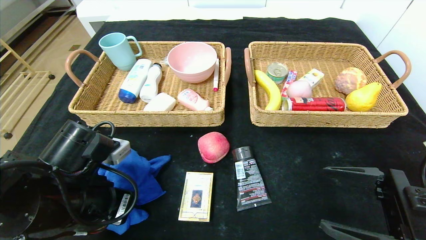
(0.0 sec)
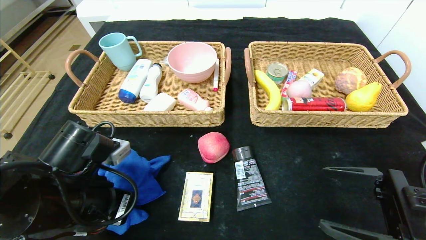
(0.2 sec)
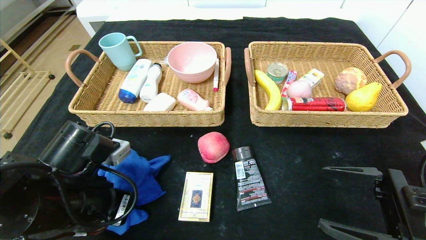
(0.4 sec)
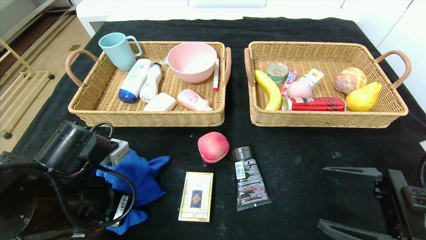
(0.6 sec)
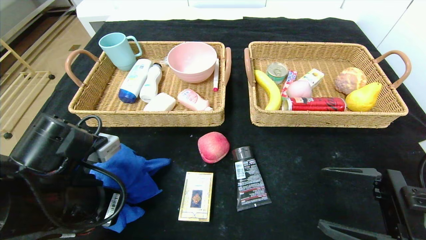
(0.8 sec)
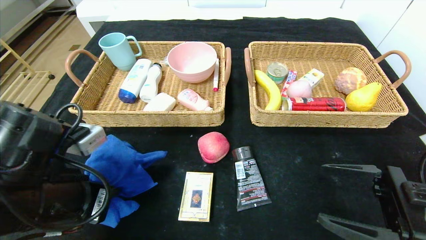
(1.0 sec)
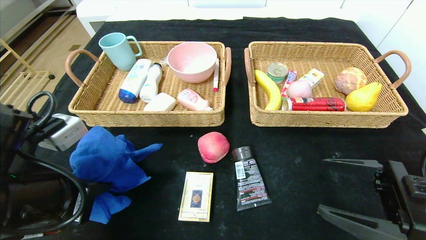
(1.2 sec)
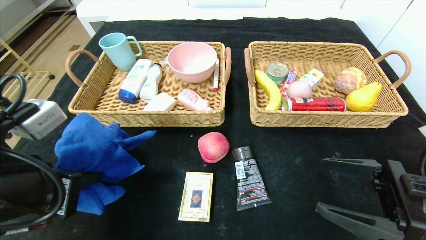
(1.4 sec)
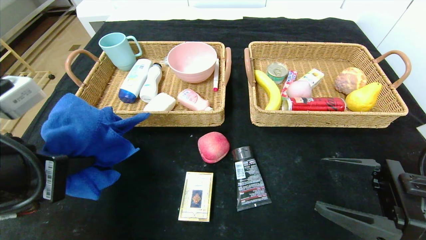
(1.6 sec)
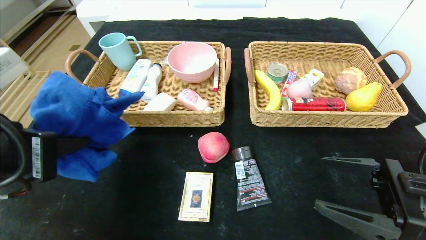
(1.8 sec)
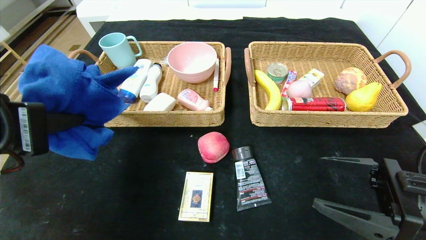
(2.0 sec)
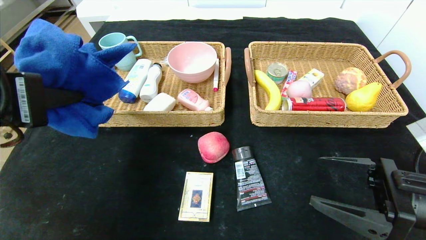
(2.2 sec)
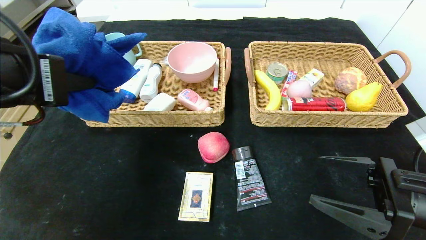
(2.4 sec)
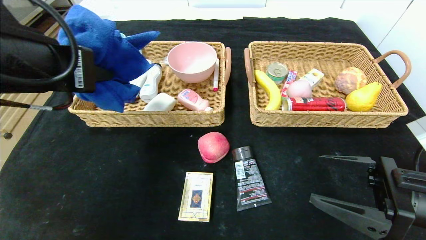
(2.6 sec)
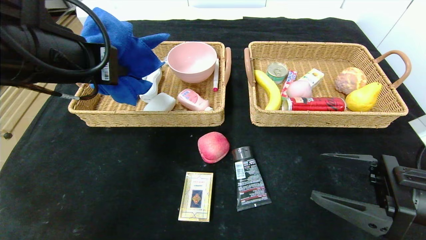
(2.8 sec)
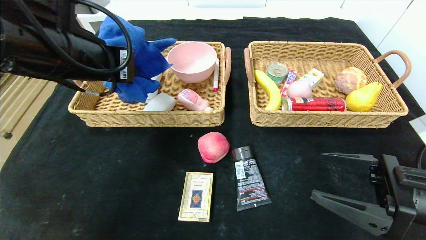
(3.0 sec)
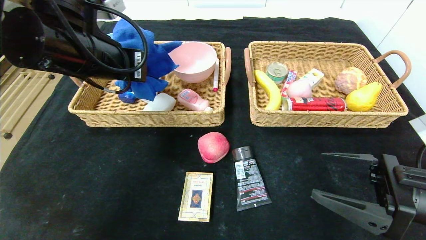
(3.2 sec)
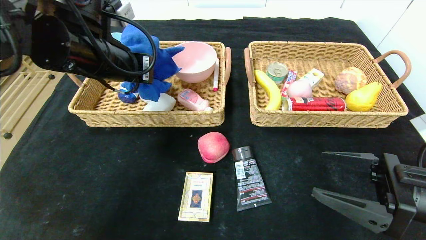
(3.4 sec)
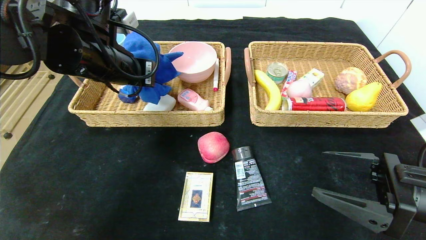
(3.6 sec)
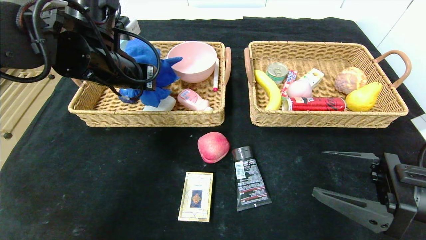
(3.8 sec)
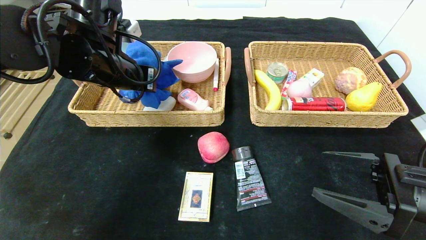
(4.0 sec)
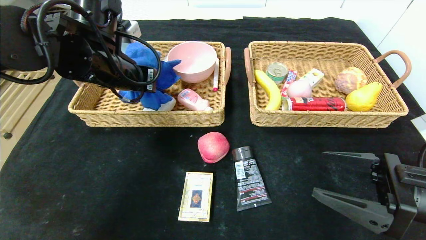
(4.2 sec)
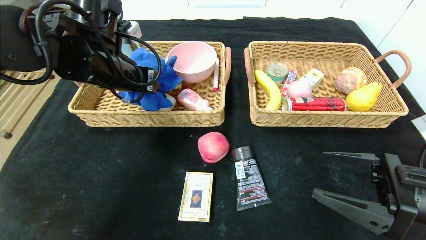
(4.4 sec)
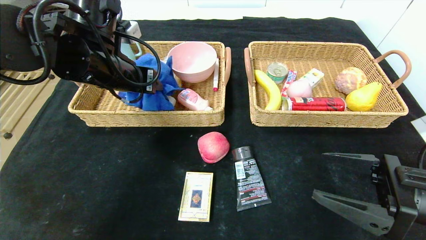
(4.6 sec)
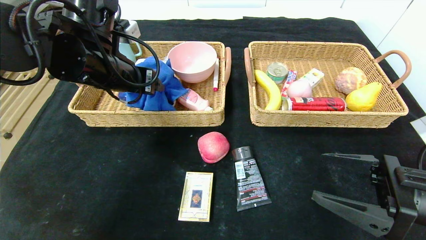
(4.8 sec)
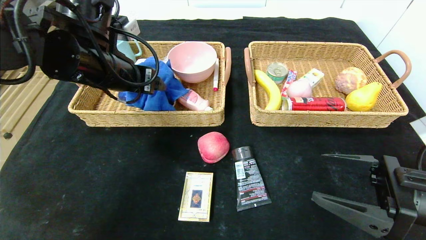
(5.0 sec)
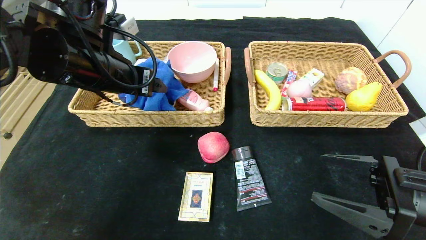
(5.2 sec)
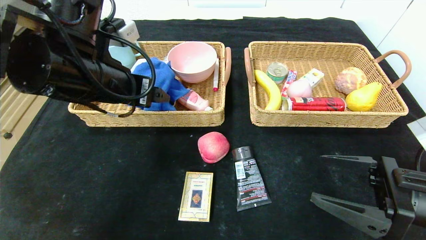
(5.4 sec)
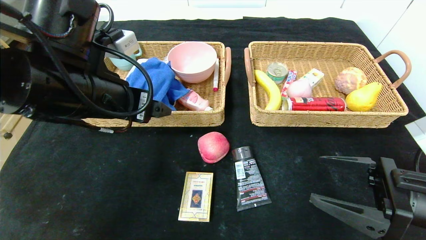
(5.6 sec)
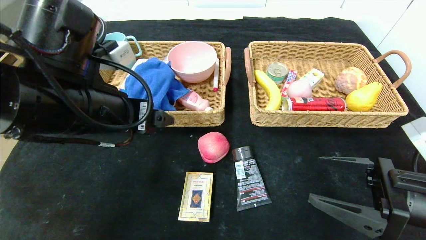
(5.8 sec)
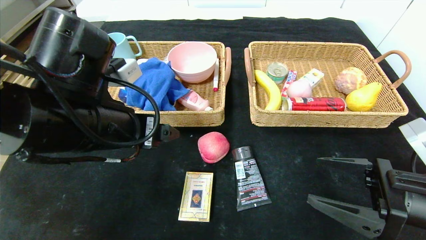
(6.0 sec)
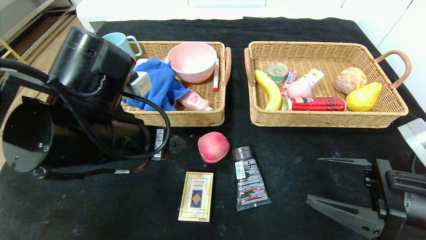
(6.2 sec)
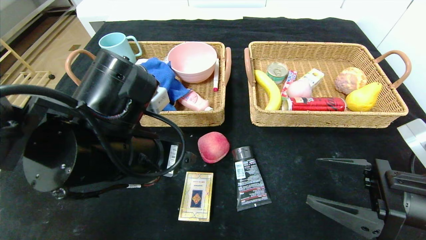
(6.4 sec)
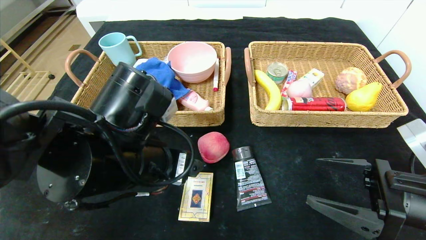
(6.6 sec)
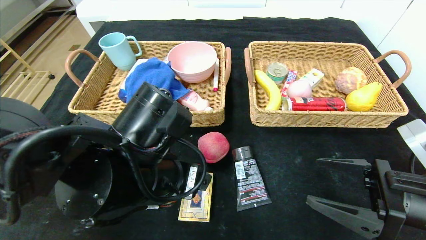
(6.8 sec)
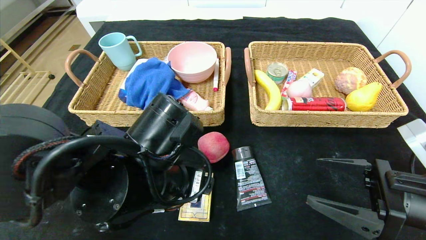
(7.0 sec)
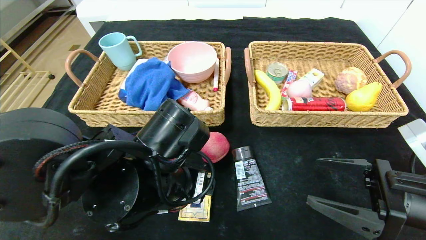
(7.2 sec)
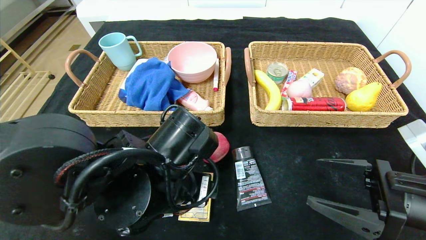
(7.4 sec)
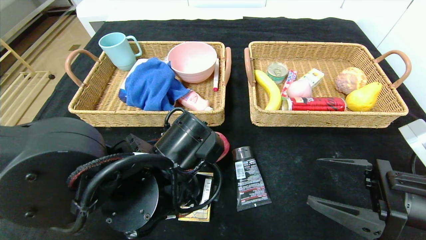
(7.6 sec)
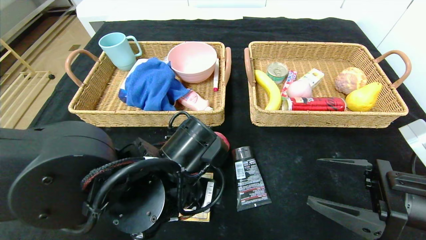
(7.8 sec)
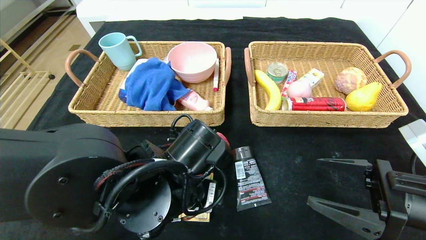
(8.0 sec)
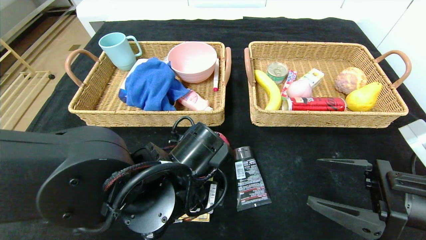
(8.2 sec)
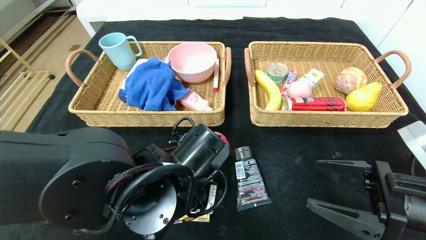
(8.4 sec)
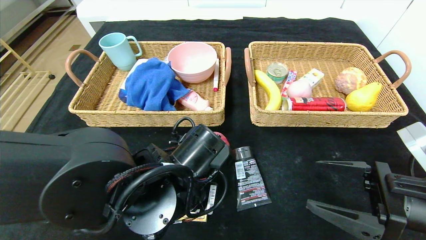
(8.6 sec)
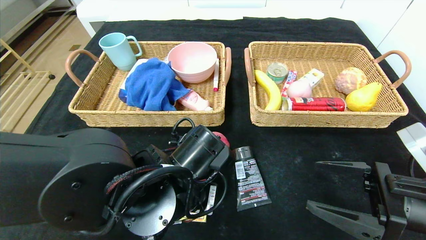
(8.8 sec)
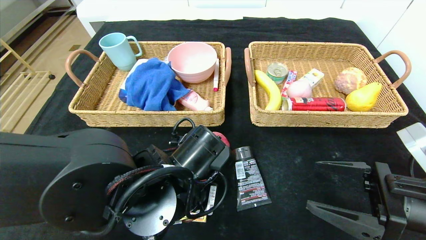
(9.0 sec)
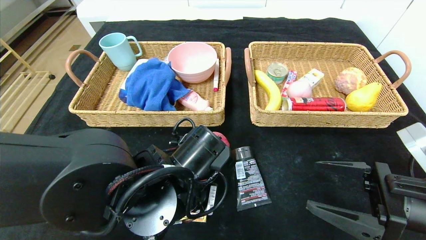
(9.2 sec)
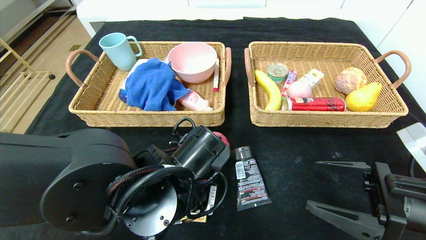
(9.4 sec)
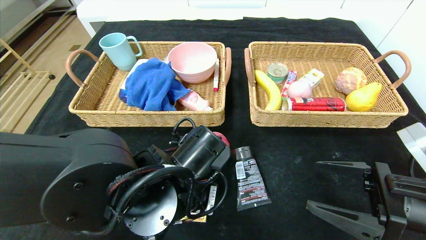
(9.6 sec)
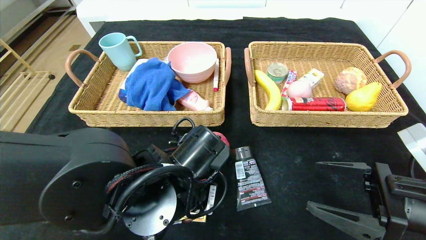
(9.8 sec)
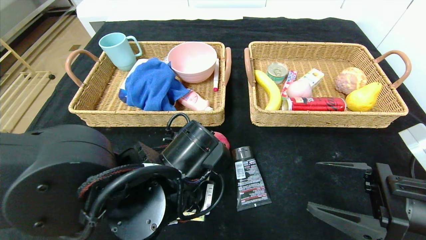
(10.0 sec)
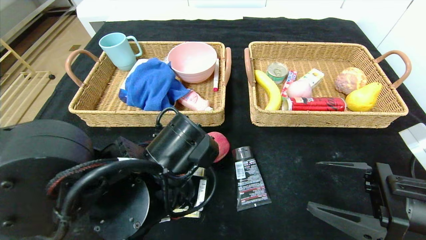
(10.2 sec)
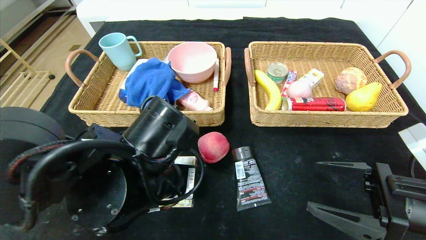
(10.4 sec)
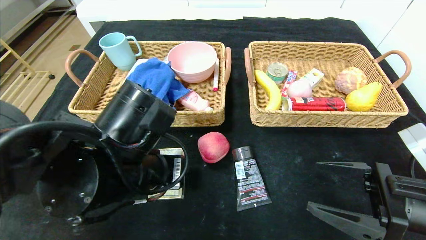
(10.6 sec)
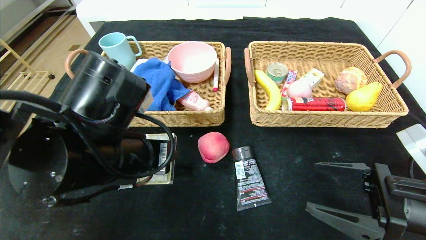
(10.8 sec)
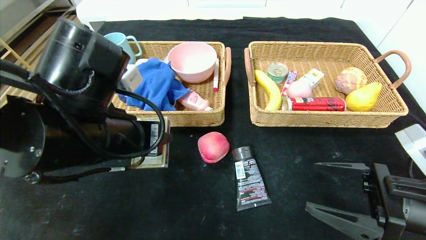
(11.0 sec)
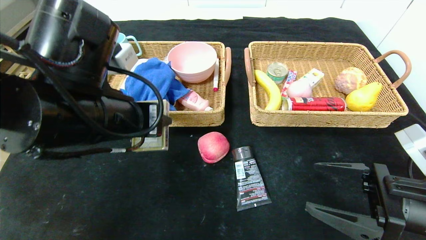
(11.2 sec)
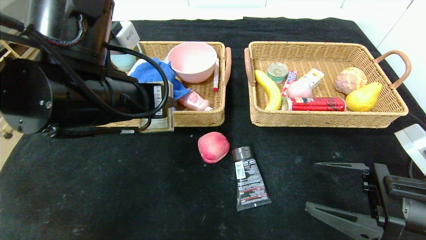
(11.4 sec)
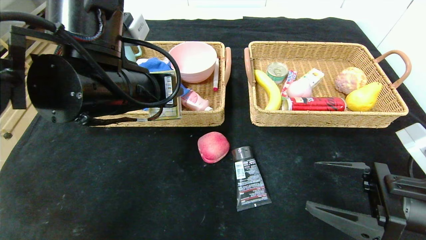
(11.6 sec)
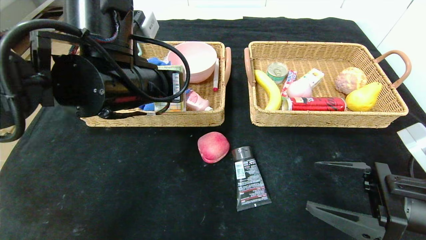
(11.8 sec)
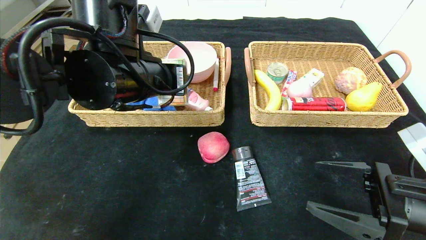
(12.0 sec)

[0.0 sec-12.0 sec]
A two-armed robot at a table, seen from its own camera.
Step, 0.0 sec to 5.4 sec: Grasp the blue towel and put it in the left basket.
0.0 sec to 1.6 sec: The left gripper moves upward and backward, roughly 10 cm.
1.6 sec to 3.0 sec: The left gripper goes about 15 cm forward and upward.
3.0 sec to 4.4 sec: The left gripper goes about 5 cm forward, and opens its fingers.
4.4 sec to 6.0 sec: The left gripper travels backward by roughly 10 cm, and opens its fingers.
6.0 sec to 7.6 sec: The left gripper shifts roughly 10 cm downward and to the right.
7.6 sec to 9.0 sec: The left gripper closes.
9.0 sec to 10.4 sec: There are only small adjustments of the grippers.
10.4 sec to 12.0 sec: The left gripper goes some 15 cm upward and forward.

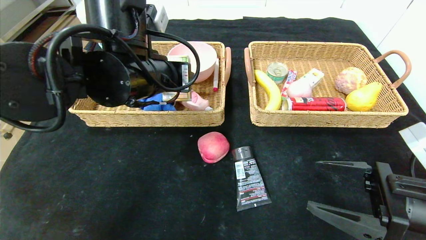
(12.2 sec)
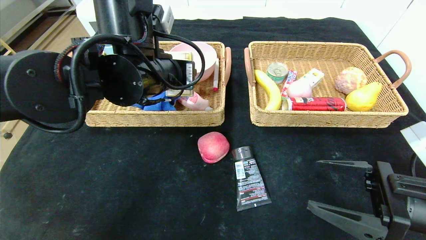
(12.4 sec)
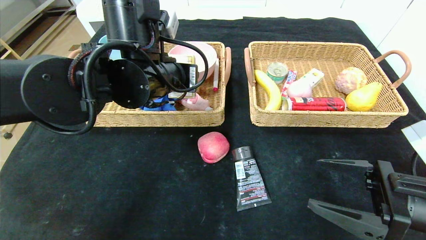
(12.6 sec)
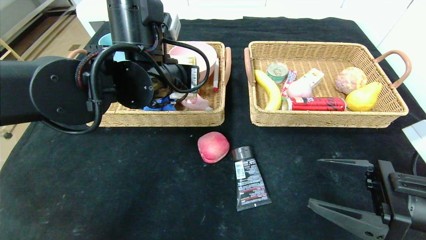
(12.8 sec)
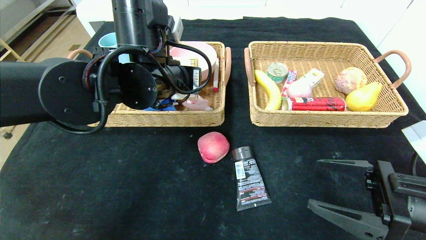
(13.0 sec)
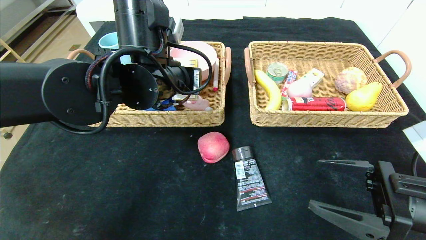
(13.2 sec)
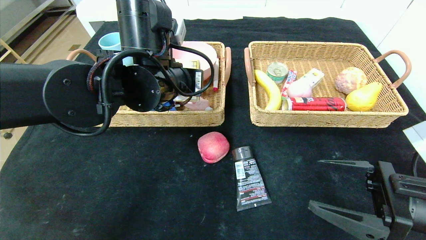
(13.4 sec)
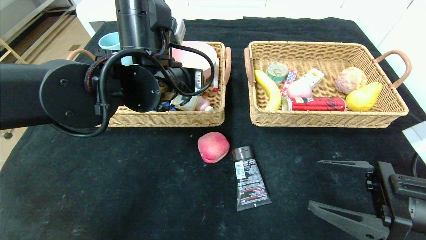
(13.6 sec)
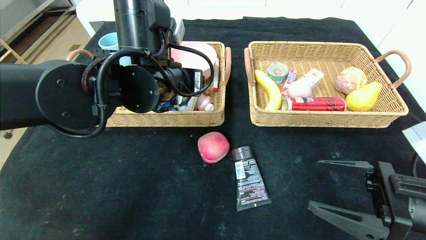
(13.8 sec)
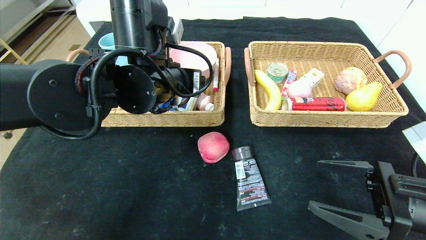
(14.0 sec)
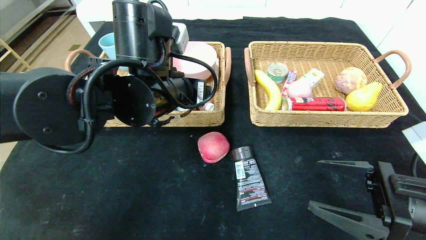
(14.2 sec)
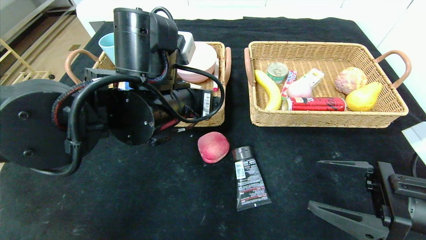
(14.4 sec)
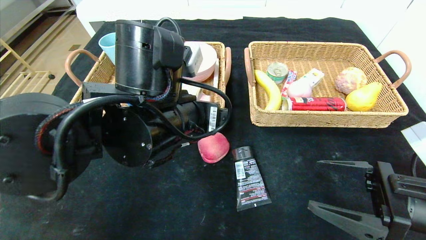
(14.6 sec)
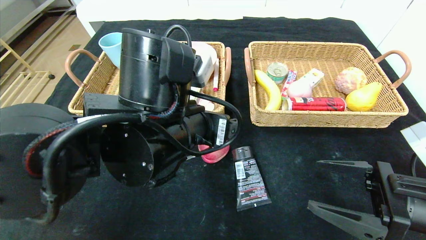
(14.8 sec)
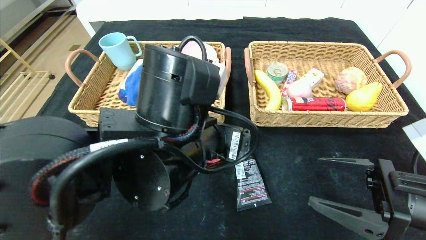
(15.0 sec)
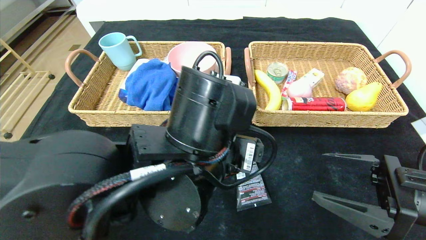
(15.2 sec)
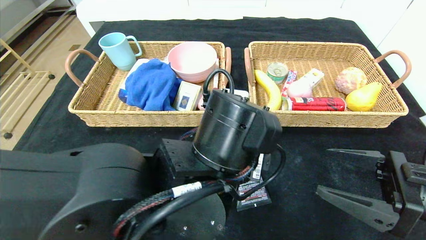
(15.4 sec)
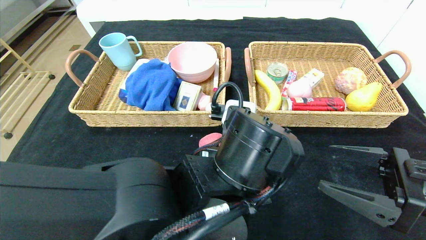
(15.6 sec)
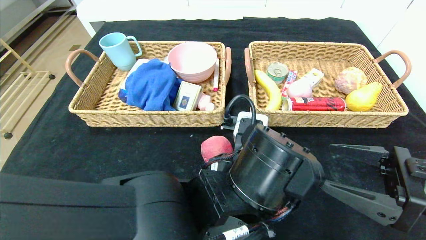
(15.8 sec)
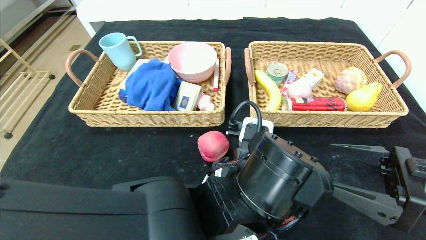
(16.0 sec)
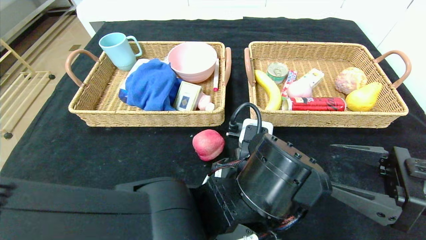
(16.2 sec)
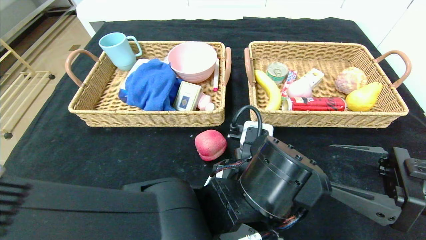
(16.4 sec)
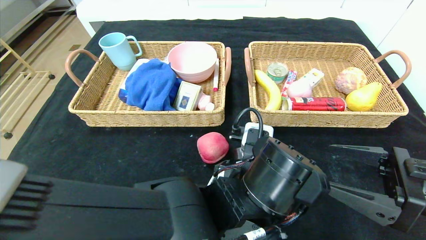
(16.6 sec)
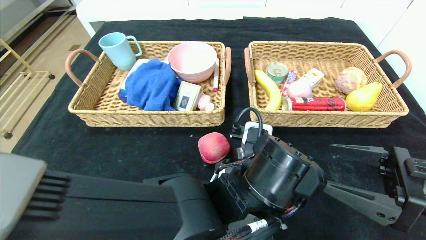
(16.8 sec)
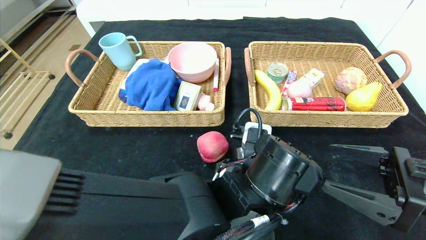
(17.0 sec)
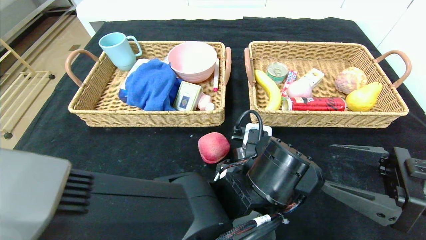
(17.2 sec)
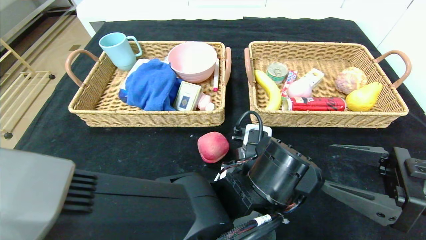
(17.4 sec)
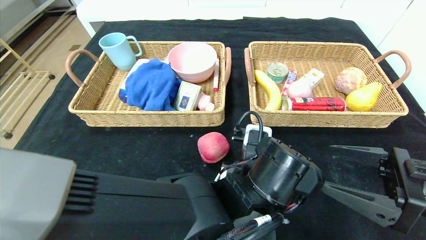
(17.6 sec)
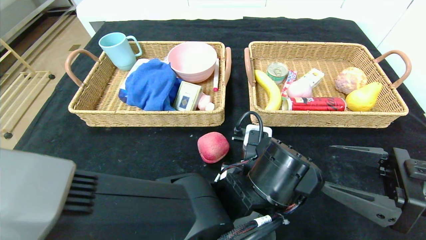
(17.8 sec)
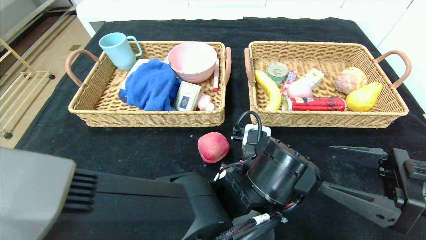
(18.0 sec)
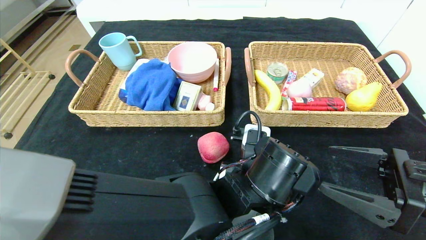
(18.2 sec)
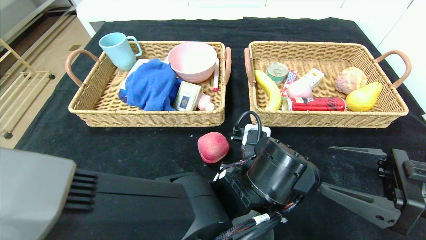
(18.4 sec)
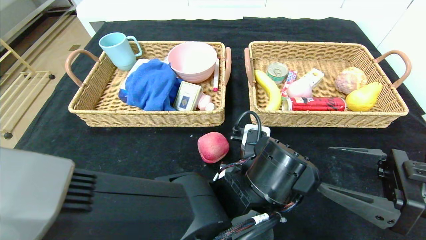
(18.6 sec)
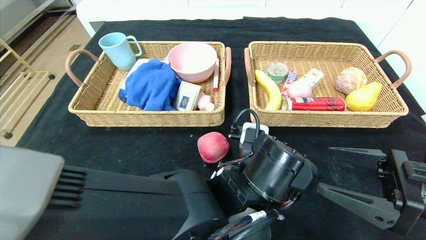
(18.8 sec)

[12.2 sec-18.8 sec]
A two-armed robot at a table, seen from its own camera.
12.2 sec to 13.8 sec: There are only small adjustments of the grippers.
13.8 sec to 15.4 sec: The left gripper goes roughly 15 cm backward, to the right and downward.
15.4 sec to 17.2 sec: The left gripper shifts roughly 5 cm downward.
17.2 sec to 18.8 sec: The left gripper closes its fingers.
